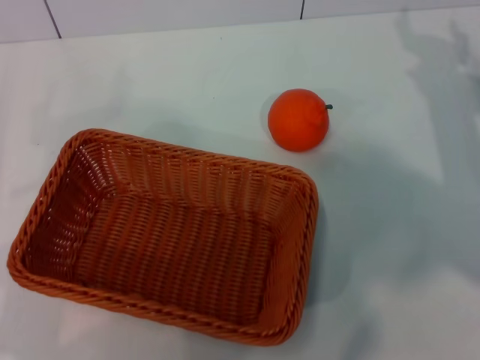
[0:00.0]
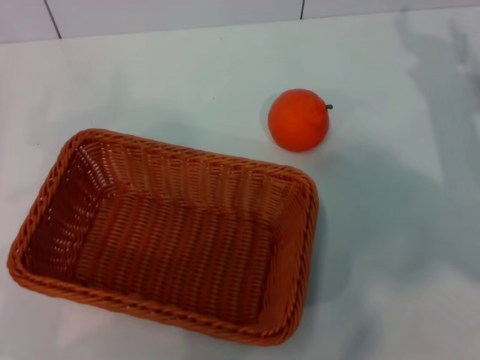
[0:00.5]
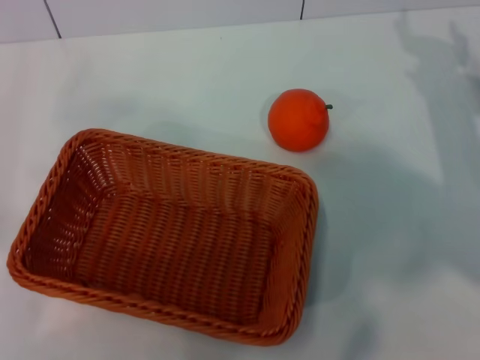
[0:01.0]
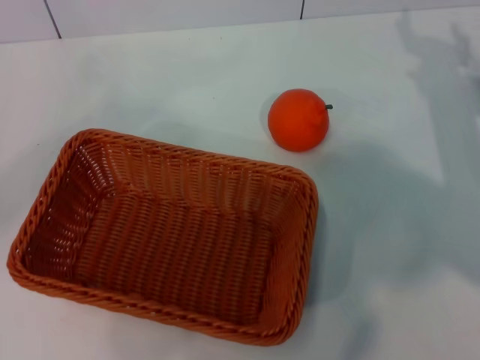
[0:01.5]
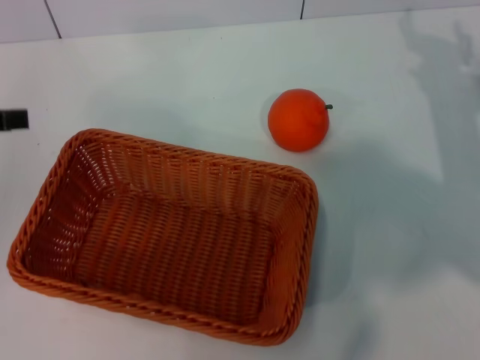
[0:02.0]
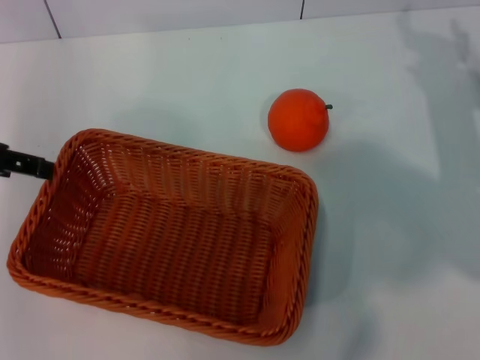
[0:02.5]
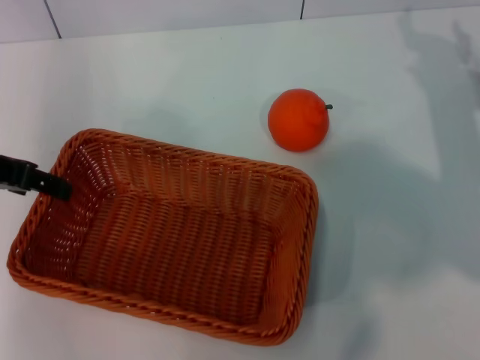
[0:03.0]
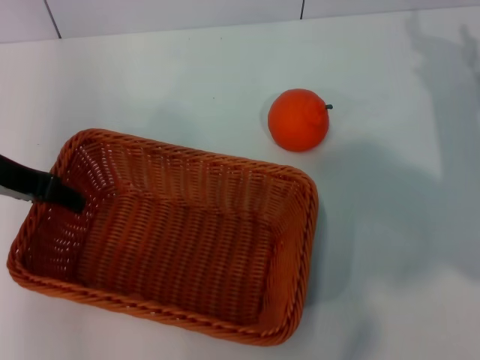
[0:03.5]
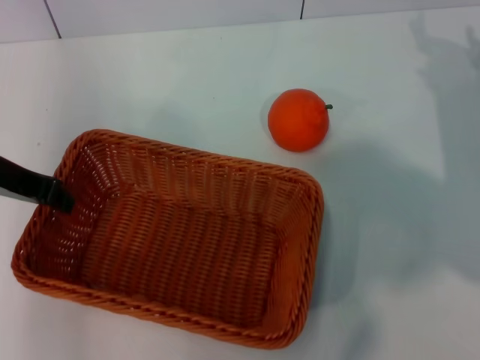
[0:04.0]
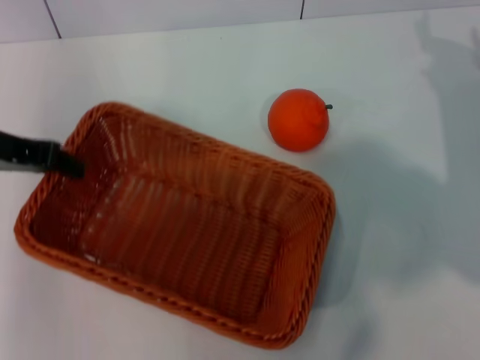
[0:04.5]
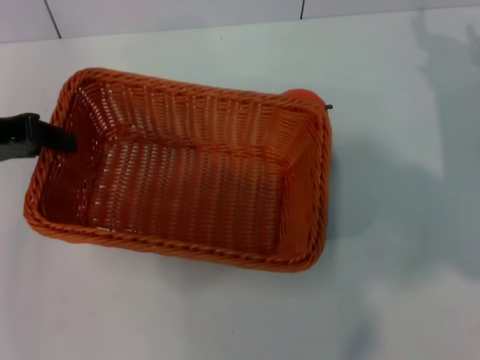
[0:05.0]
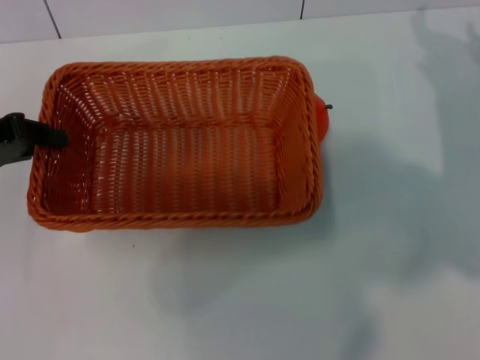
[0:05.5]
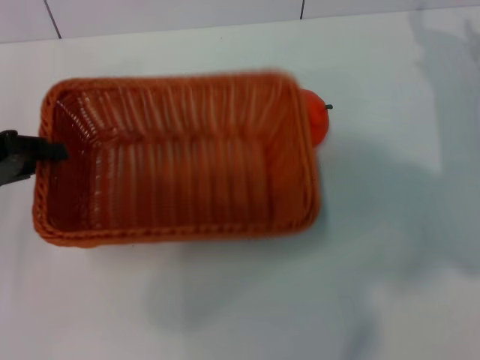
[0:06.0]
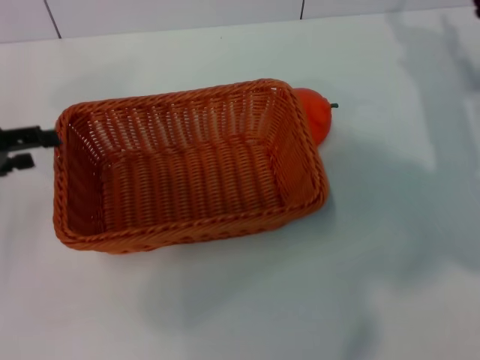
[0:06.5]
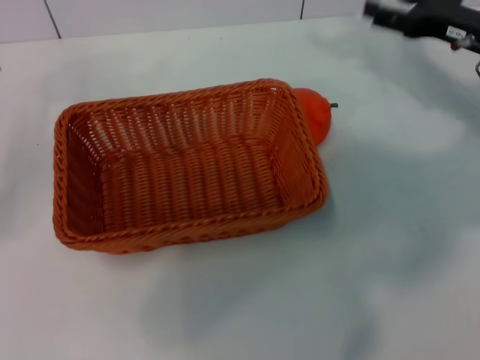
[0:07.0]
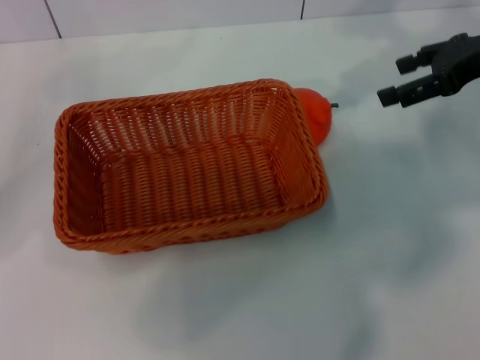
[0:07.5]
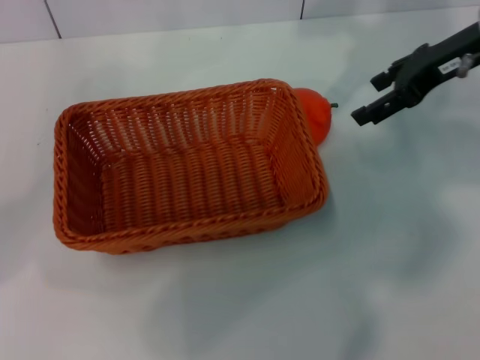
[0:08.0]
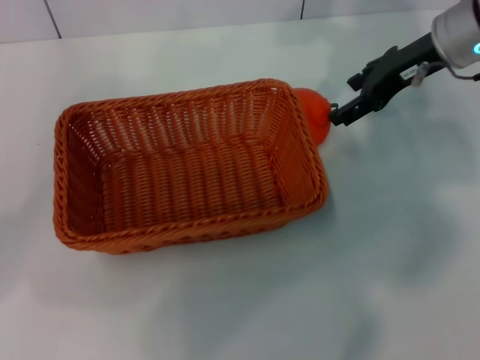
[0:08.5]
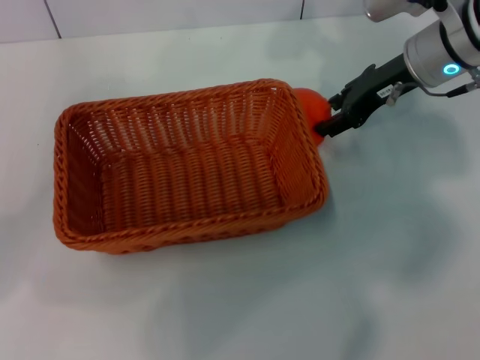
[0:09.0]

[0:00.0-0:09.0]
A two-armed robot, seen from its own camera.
Task of the whole recording: the left gripper pick up the yellow basket and place it horizontally in the middle of the table, the right gripper pick up the orange and place it into the yellow basket.
Step, 0:00.0 to 0:04.5: Pick up the light basket with the left gripper.
Step, 0:05.0 to 0:06.0: Place the light basket in the center of view with the left gripper.
0:00.0 to 0:02.0: The left gripper travels upward and forward by approximately 20 cm.
0:02.0 to 0:04.5: The left gripper travels to the right by some 10 cm, and closes its fingers.
0:04.5 to 0:07.0: The right gripper moves upward, about 5 cm. Meanwhile the left gripper travels to the left and downward by roughly 10 cm, and opens up.
0:07.0 to 0:09.0: The right gripper moves to the left, roughly 10 cm.

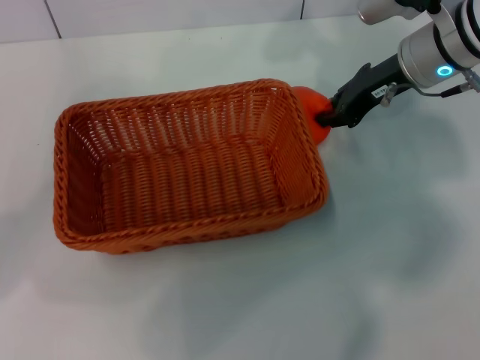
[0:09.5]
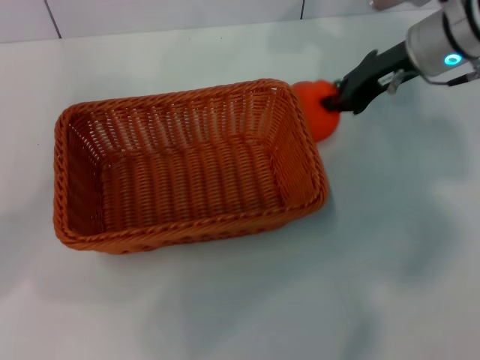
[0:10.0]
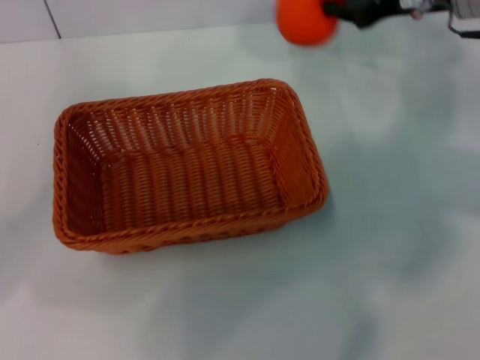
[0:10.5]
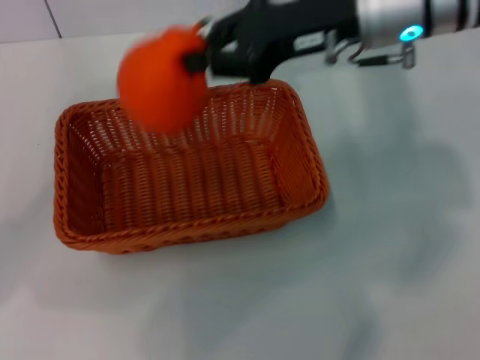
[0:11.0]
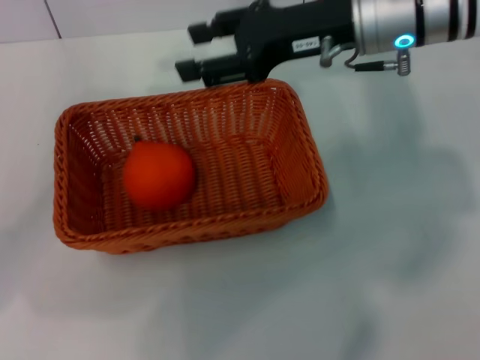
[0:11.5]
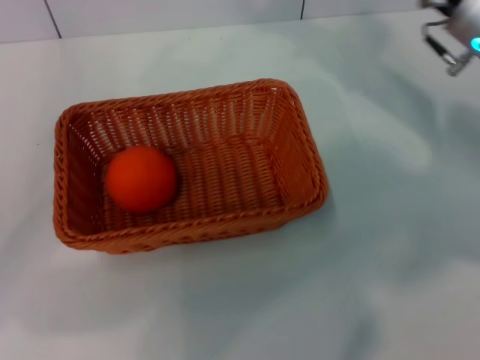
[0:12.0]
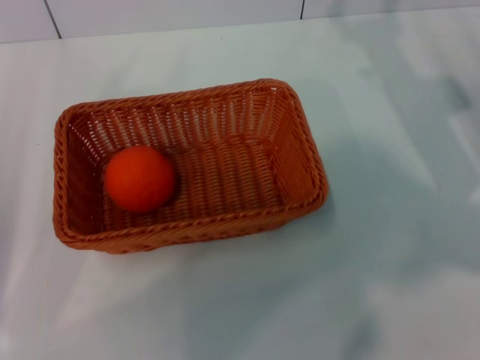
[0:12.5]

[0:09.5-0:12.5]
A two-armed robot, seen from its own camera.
Task of the whole recording: the left gripper pick up the yellow basket and place it horizontally in the middle of the table, the right gripper pick up the orange and place it into the yellow basket.
Step, 0:10.5 to 0:11.0: Place the orange into the light basket with the right gripper.
0:09.5 to 0:11.0: The right gripper shifts about 10 cm upward and to the left.
0:11.0 to 0:12.5: The left gripper goes some 10 cm backward and downward; the right gripper goes approximately 20 cm to the right, downward and backward, and opens up.

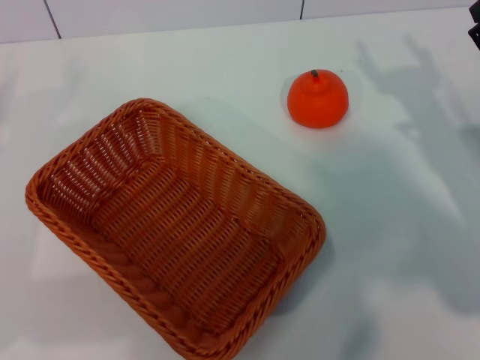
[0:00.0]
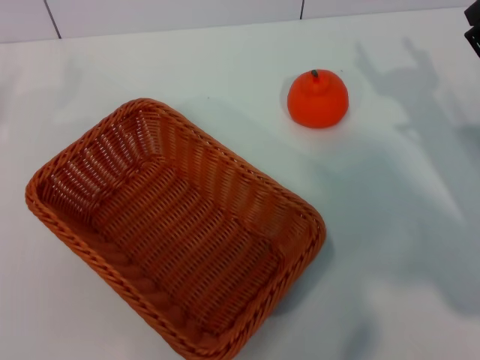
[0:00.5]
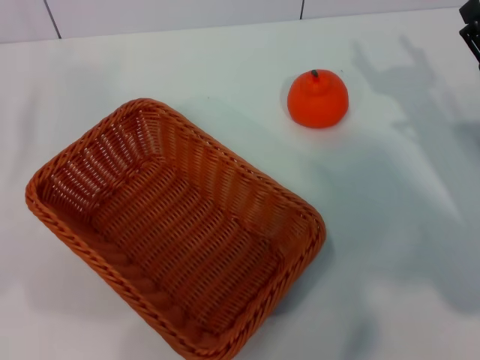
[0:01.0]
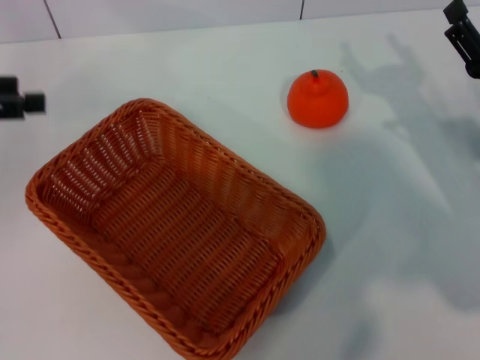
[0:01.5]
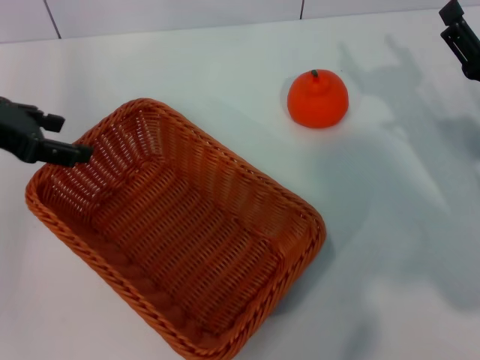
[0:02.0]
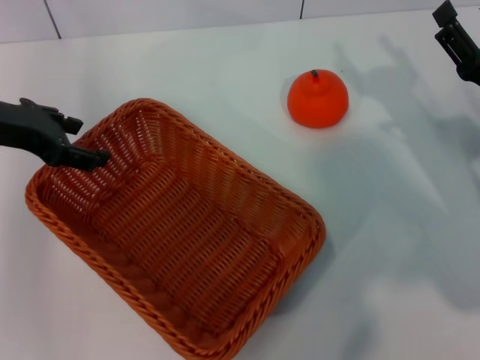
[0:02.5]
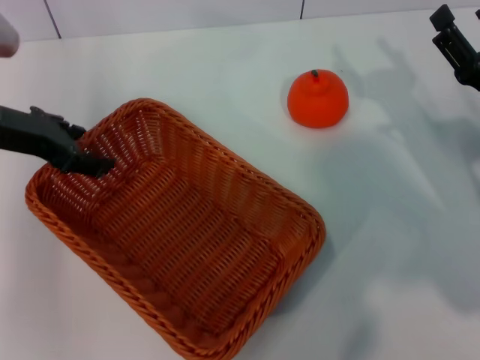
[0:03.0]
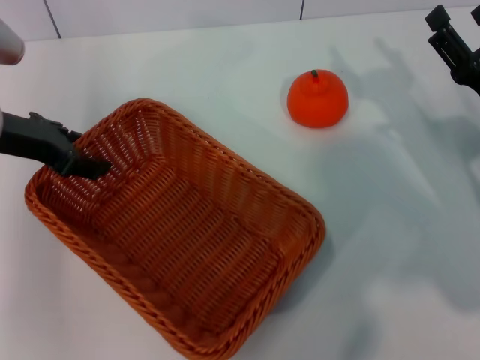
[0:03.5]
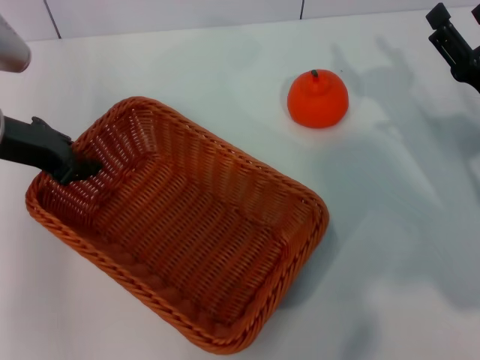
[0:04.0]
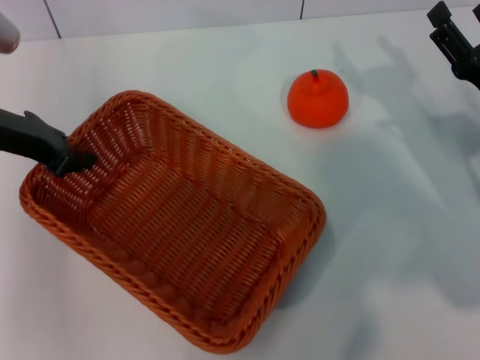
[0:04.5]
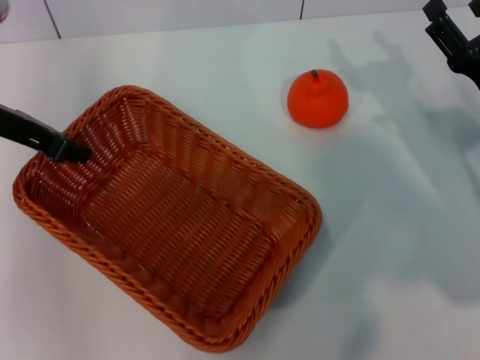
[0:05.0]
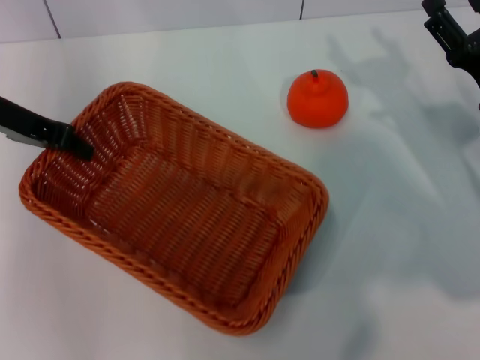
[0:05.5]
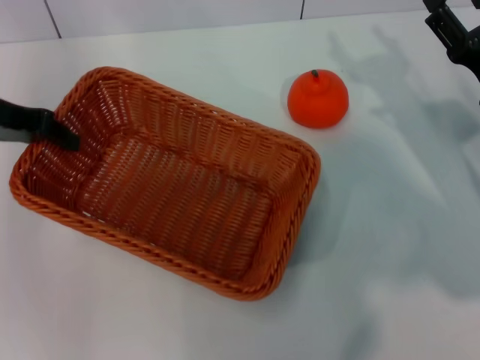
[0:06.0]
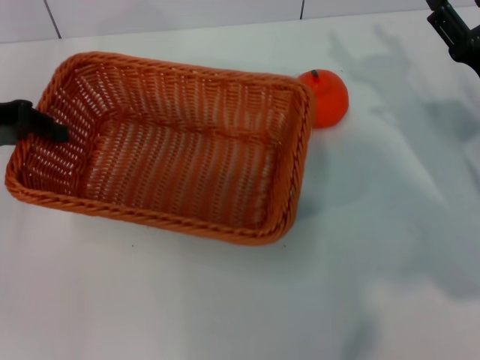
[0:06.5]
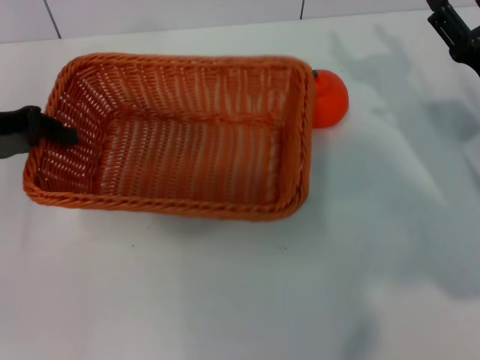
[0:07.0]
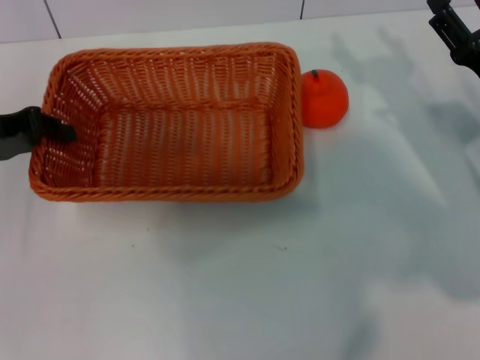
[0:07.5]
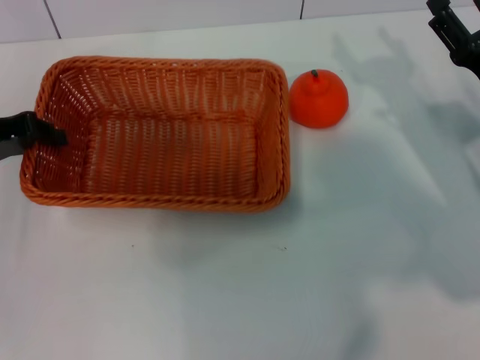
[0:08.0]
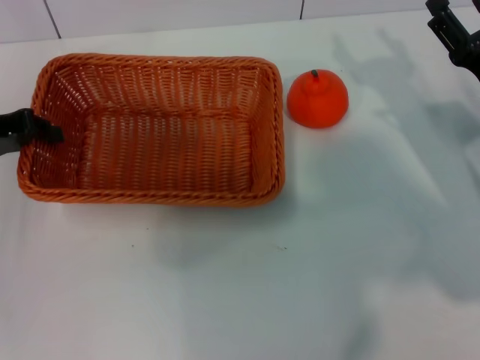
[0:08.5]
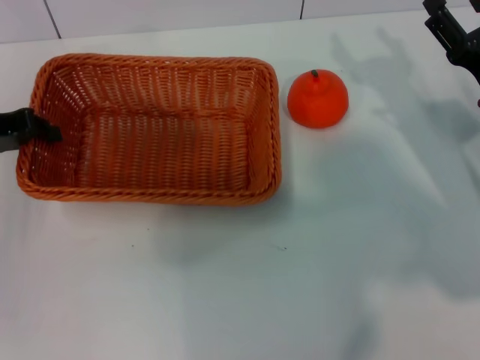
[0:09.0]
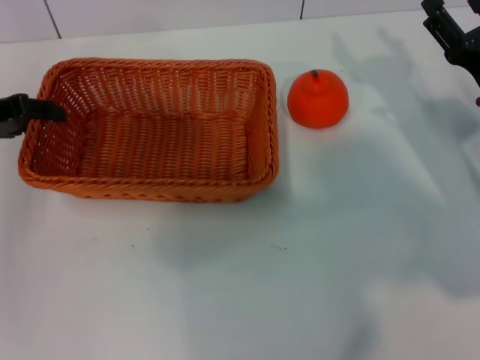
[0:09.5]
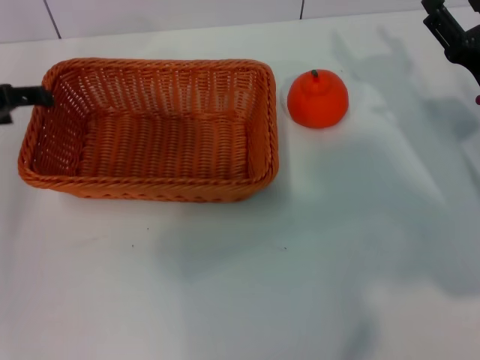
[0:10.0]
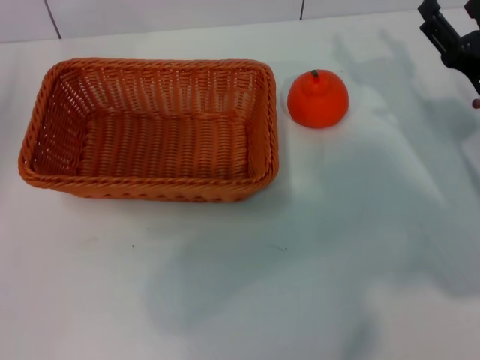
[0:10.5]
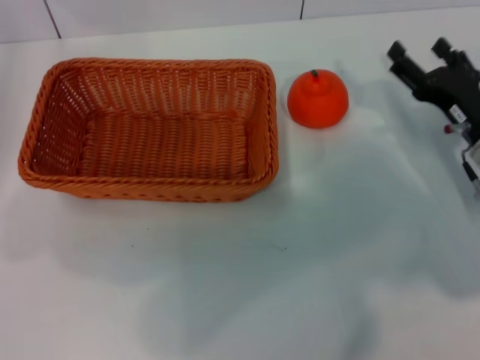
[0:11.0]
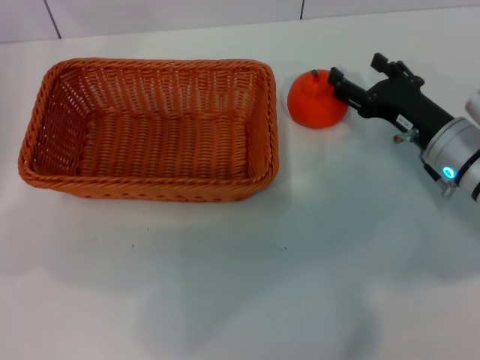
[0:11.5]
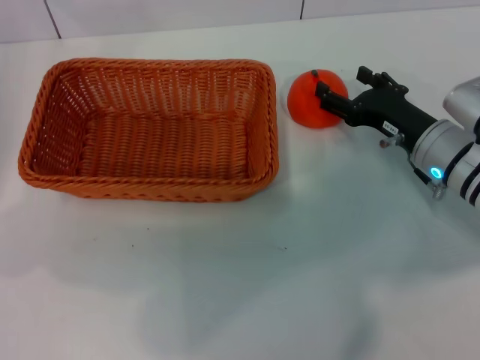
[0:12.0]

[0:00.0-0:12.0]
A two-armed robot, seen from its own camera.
Task of the whole recording: the left gripper pick up the yellow basket and place it horizontally in the middle of the table, the right gripper pick up the orange and place it into the yellow basket.
Step, 0:00.0 to 0:05.0: Pick up the light basket with the left gripper.
Step, 0:06.0 to 0:09.5: Place the light basket in the center of view with the left gripper.
0:00.0 to 0:02.0: The left gripper shifts some 15 cm upward, to the right and forward.
0:02.0 to 0:04.0: The left gripper ends up some 5 cm from where it was, and closes up.
0:04.0 to 0:06.0: The left gripper moves approximately 5 cm, and closes.
0:06.0 to 0:08.0: The left gripper changes place by approximately 5 cm.
0:08.0 to 0:10.0: The left gripper opens up.
0:10.0 to 0:12.0: The left gripper goes approximately 5 cm backward. The right gripper moves approximately 5 cm.

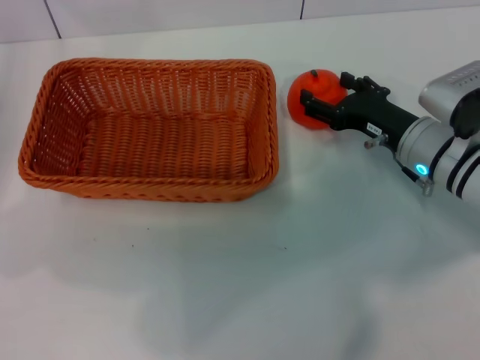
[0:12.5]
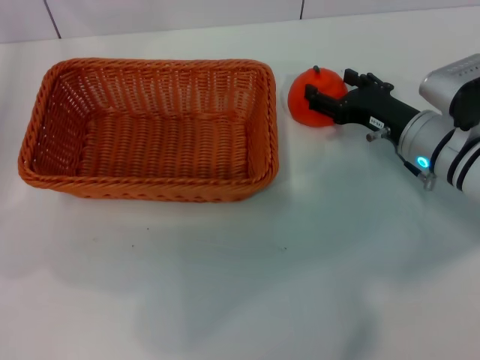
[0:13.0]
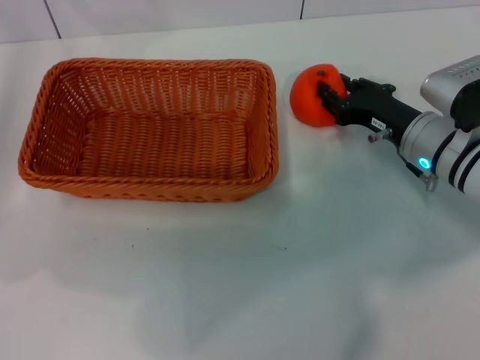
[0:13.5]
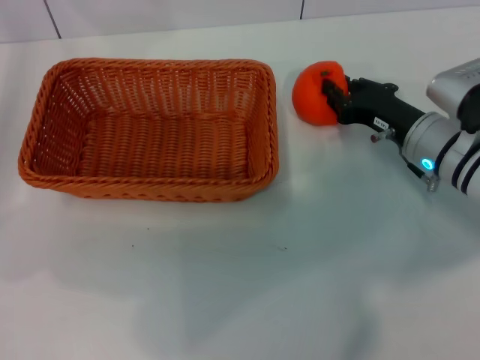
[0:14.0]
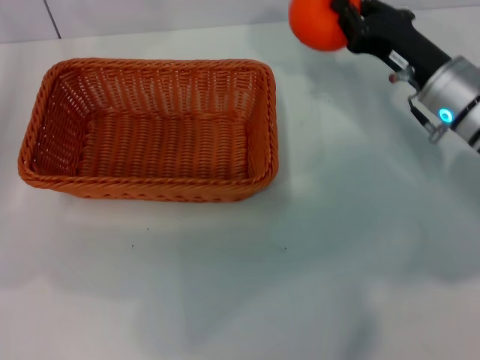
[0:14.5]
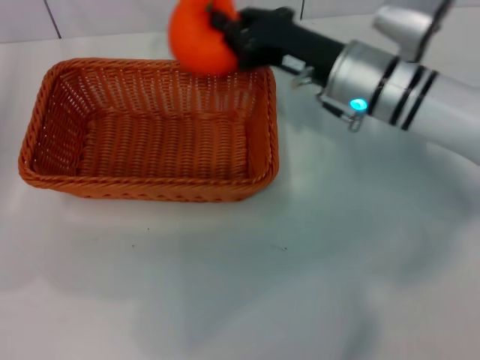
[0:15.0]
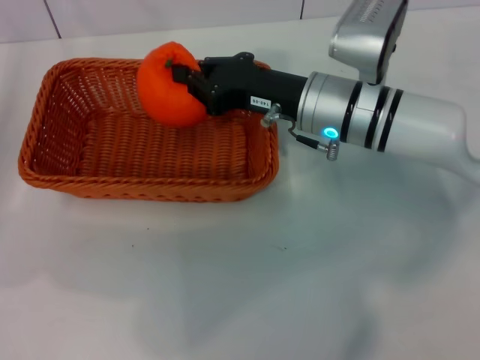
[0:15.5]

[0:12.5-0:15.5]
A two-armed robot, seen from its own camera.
Task of the whole recording: the left gripper pick up the yellow basket and place it horizontally in the middle of the table, the right gripper pick up the orange and place it into the yellow basket.
0:12.5 to 0:14.0: The right gripper closes.
0:14.0 to 0:15.5: The right gripper heads to the left and upward, covering approximately 15 cm.
